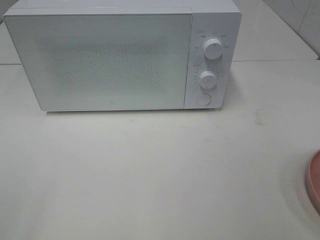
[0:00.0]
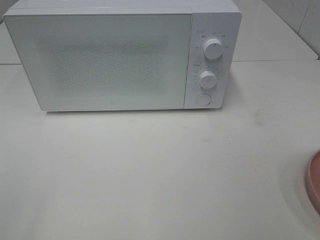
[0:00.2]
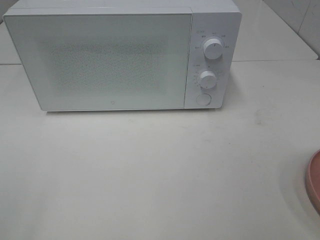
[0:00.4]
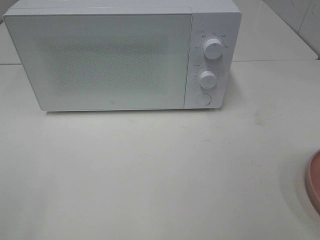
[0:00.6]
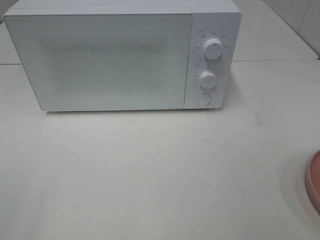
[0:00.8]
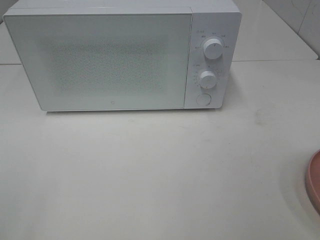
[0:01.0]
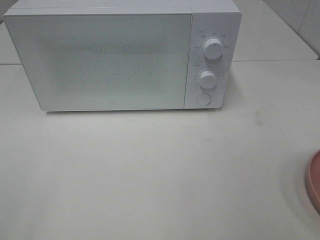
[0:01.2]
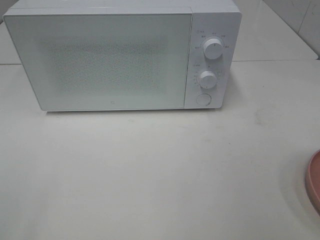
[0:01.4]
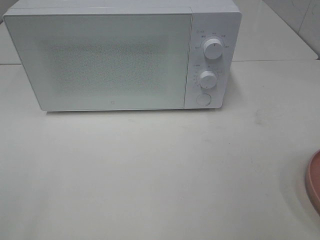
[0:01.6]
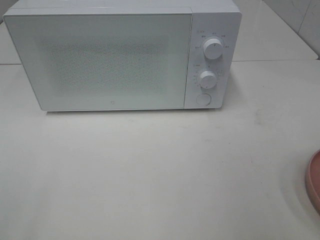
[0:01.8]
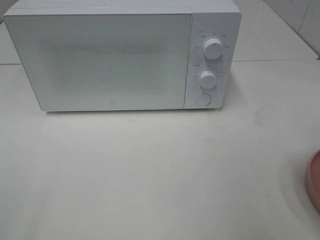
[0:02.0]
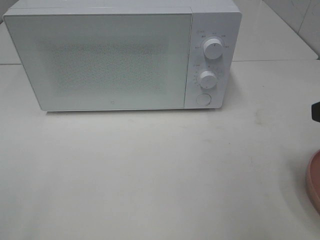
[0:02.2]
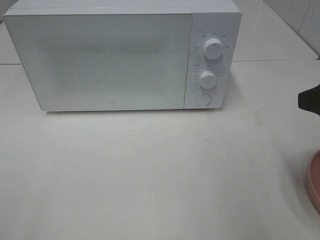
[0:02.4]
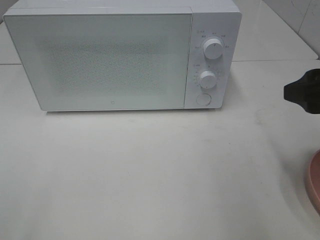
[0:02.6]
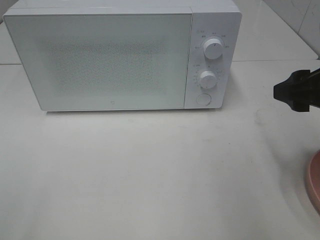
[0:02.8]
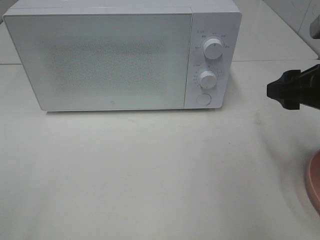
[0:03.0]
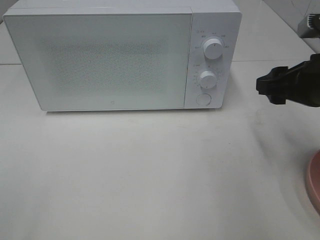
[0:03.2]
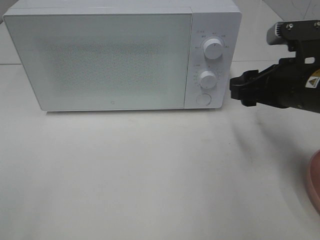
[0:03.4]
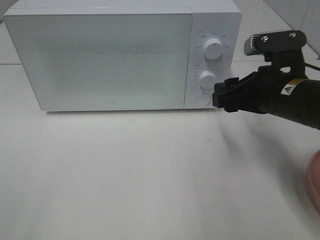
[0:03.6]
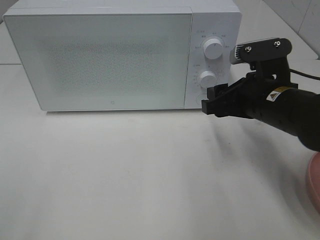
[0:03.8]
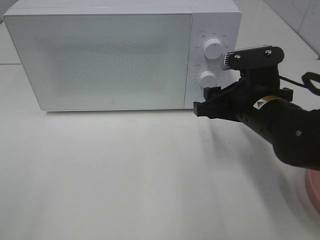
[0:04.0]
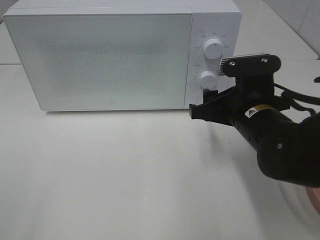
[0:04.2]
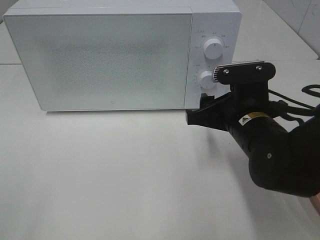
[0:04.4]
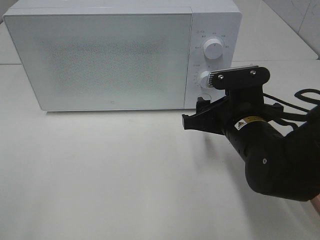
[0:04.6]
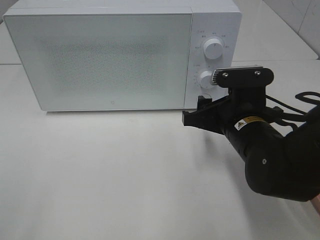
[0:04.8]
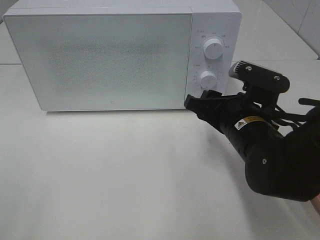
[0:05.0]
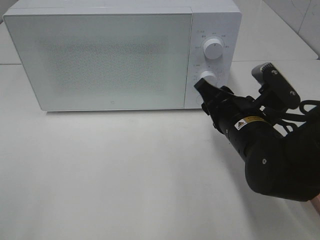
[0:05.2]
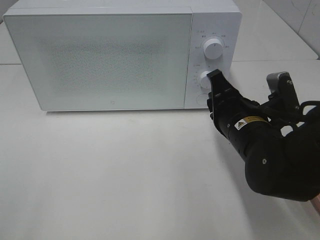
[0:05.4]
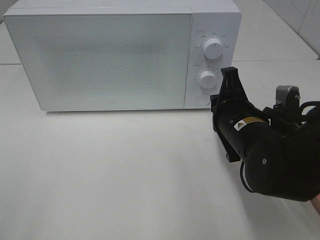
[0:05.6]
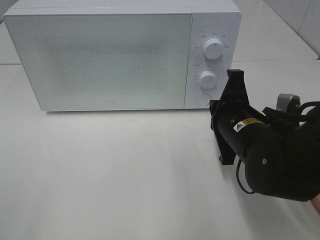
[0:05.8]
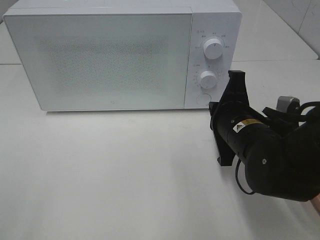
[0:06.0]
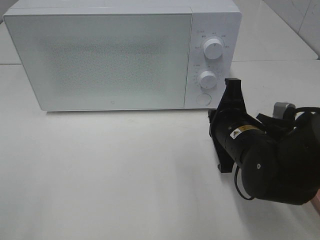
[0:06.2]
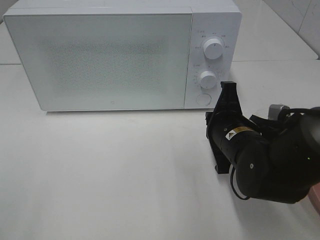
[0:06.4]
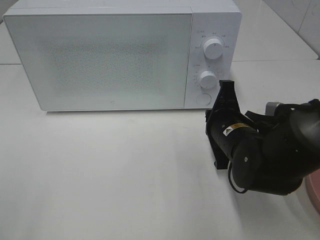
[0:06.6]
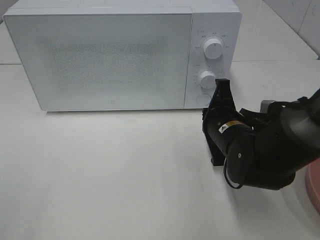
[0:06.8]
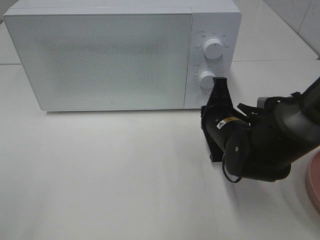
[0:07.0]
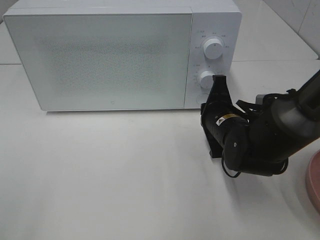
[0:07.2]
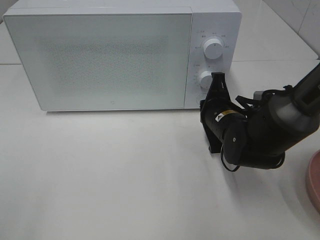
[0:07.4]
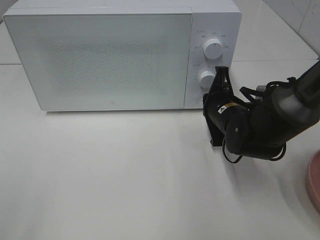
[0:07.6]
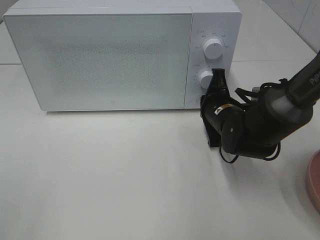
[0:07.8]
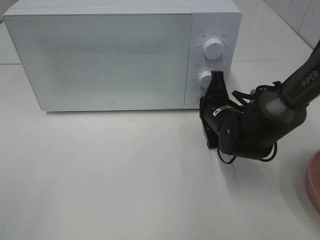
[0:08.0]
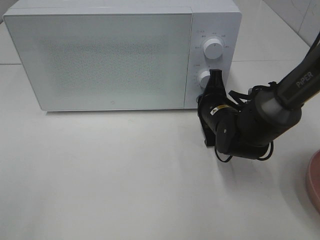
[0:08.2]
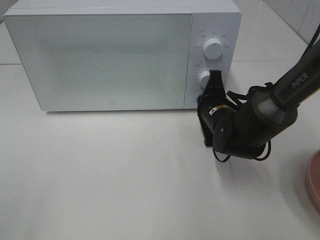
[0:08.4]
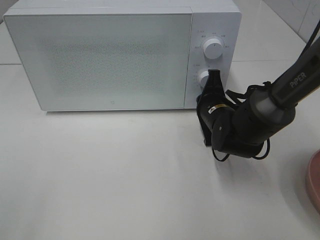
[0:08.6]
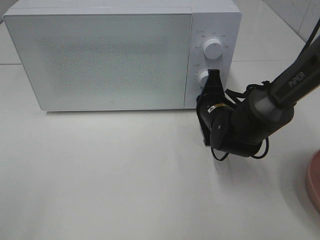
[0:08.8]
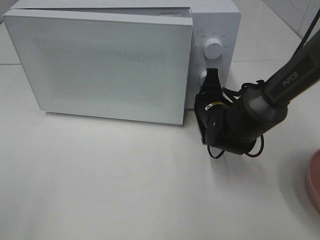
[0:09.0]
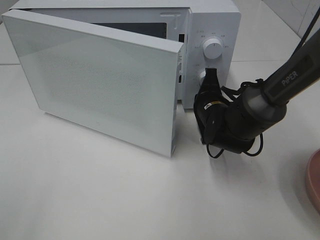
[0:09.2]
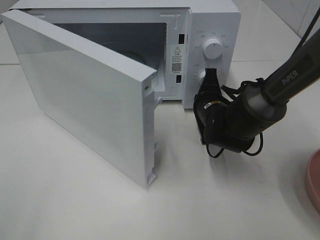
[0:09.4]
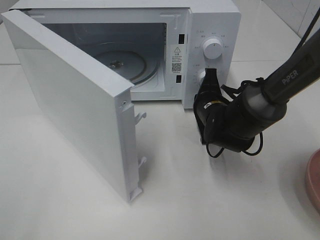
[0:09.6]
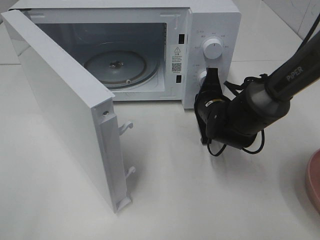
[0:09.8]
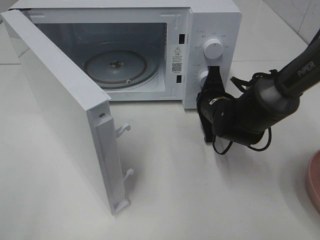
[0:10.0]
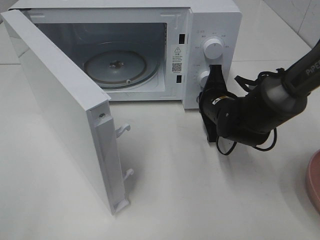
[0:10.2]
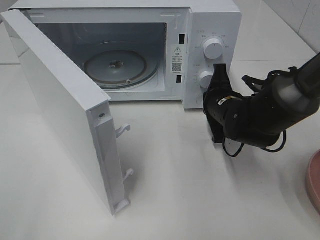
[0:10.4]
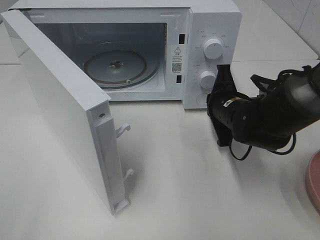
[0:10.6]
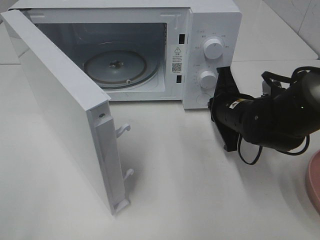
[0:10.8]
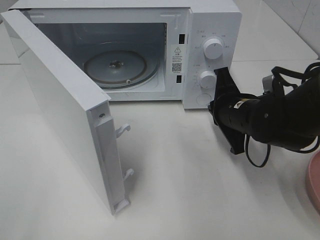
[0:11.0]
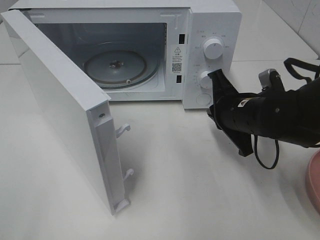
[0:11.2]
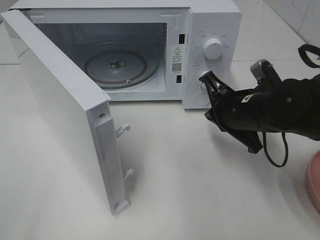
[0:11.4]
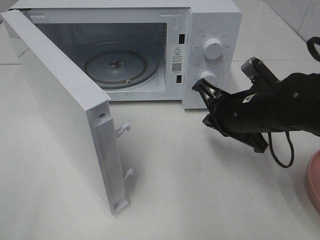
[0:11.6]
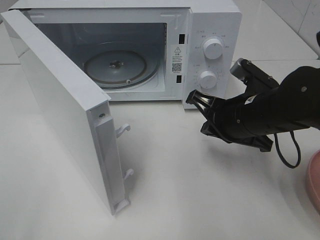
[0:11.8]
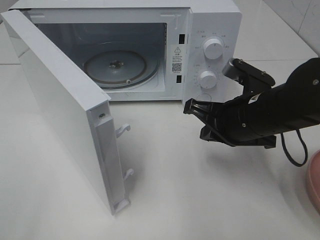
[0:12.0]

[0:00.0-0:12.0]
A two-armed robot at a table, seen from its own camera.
Task of the whole recording: Heat the burger.
Step, 0:00.0 to 0:10.6: Right hand: press the switch.
0:01.6 to 0:03.0: The right gripper shifts about 15 cm forward.
0:03.0 to 0:04.4: The right gripper heads to the left and downward, covering roughly 15 cm.
0:04.4 to 0:06.0: The right gripper closes its fingers.
0:06.0 to 0:07.6: The right gripper heads forward, covering roughly 10 cm.
0:07.6 to 0:09.0: There are only small adjustments of the grippers.
0:10.4 to 0:12.0: The right gripper goes about 10 cm backward and upward.

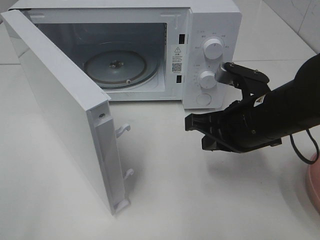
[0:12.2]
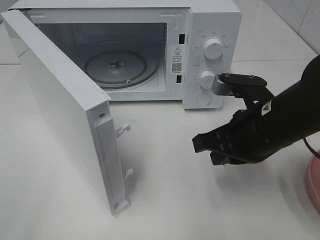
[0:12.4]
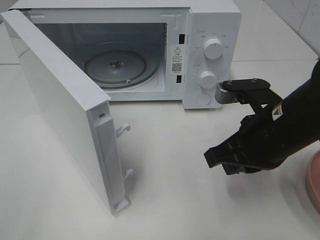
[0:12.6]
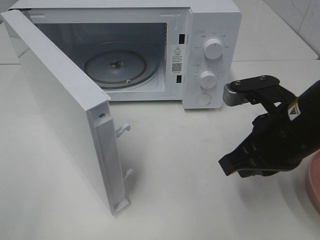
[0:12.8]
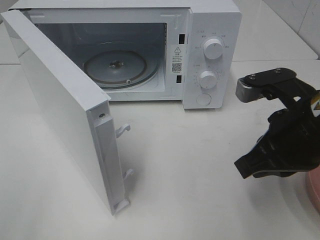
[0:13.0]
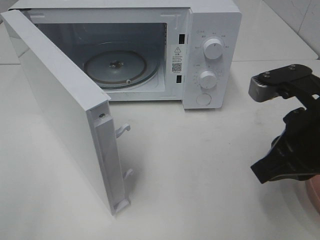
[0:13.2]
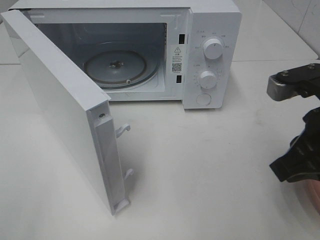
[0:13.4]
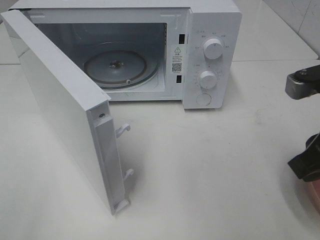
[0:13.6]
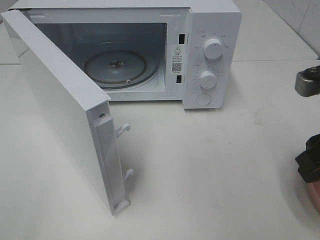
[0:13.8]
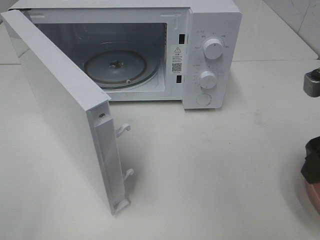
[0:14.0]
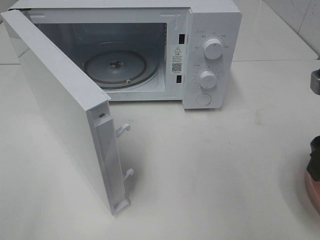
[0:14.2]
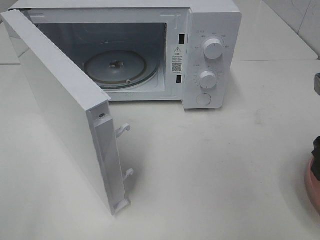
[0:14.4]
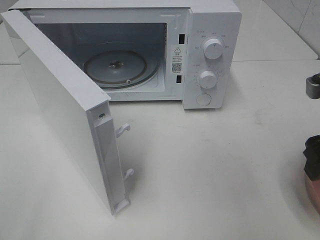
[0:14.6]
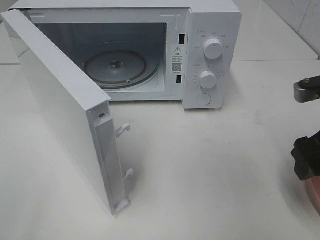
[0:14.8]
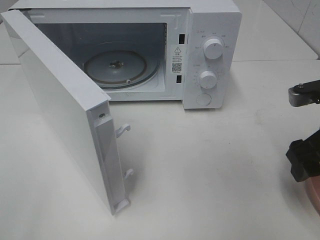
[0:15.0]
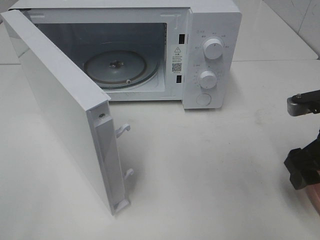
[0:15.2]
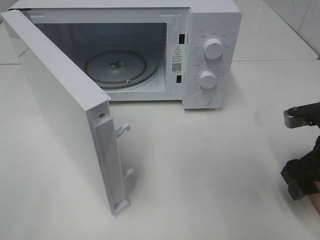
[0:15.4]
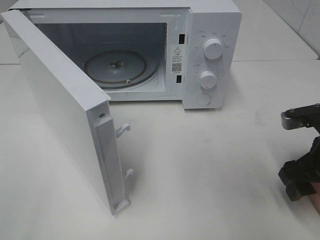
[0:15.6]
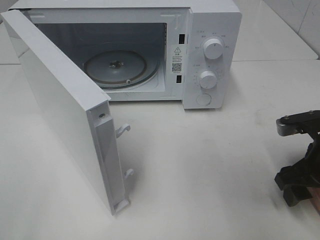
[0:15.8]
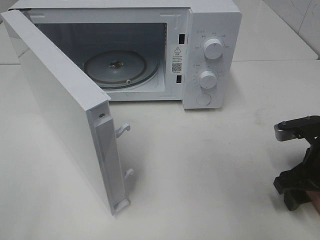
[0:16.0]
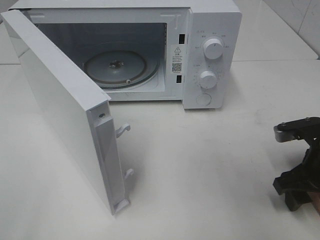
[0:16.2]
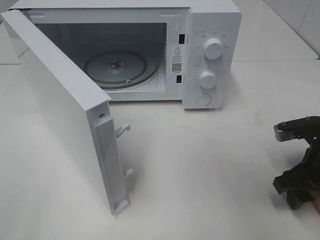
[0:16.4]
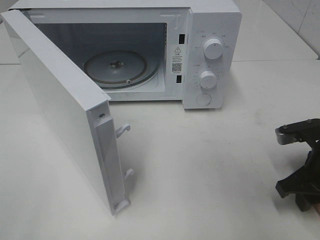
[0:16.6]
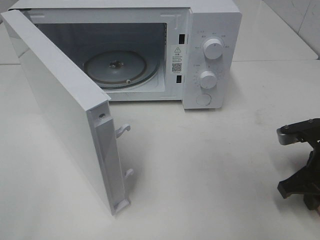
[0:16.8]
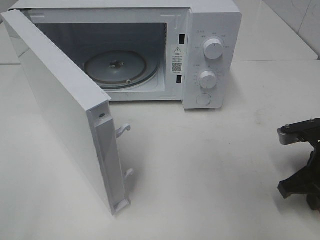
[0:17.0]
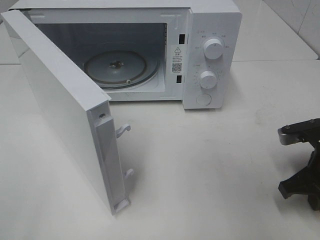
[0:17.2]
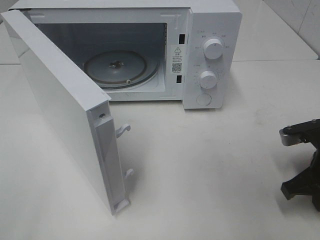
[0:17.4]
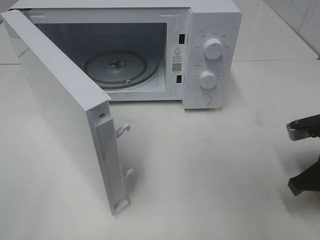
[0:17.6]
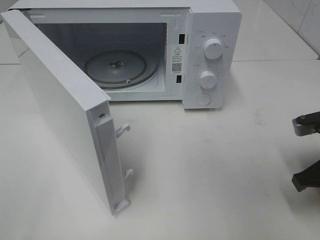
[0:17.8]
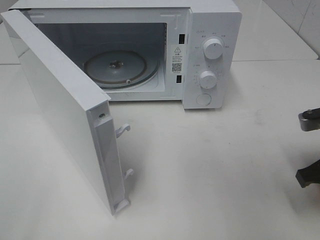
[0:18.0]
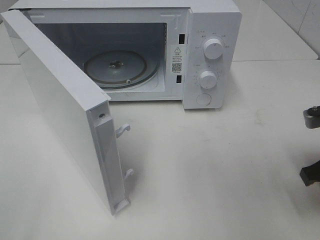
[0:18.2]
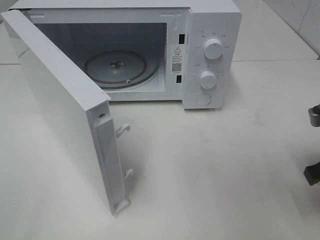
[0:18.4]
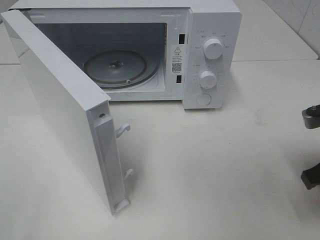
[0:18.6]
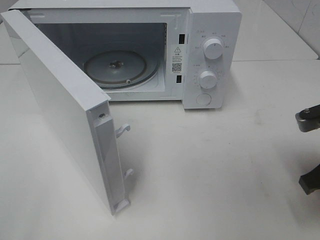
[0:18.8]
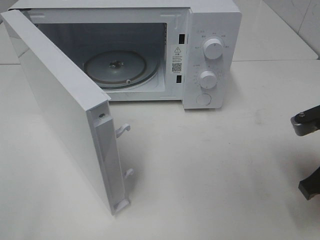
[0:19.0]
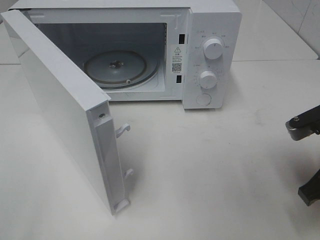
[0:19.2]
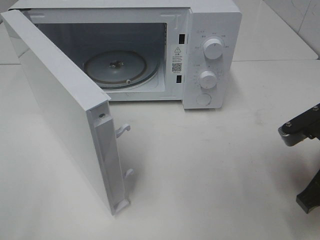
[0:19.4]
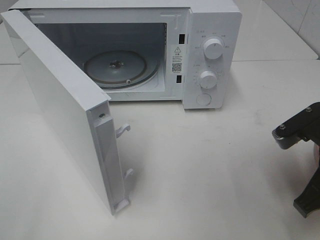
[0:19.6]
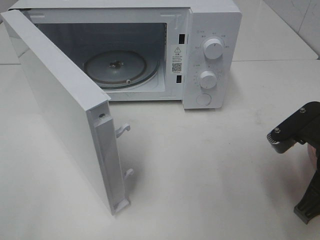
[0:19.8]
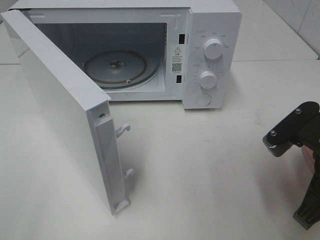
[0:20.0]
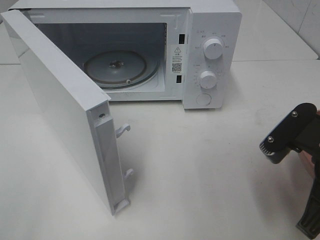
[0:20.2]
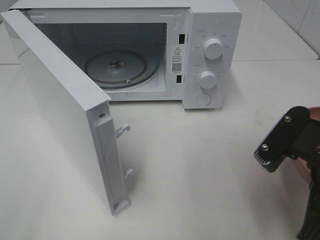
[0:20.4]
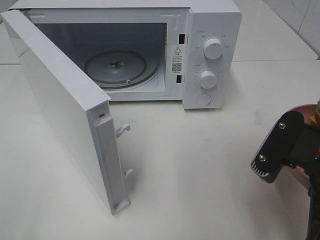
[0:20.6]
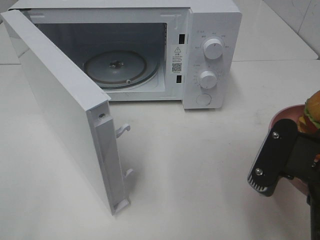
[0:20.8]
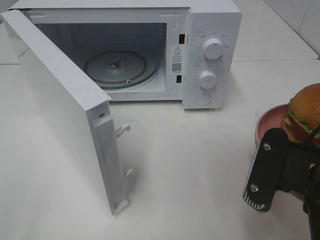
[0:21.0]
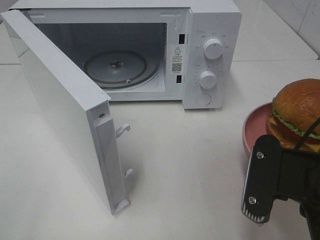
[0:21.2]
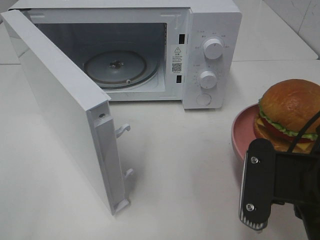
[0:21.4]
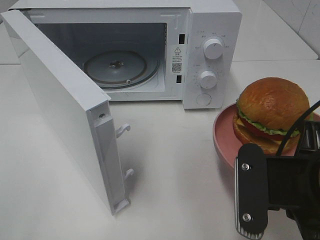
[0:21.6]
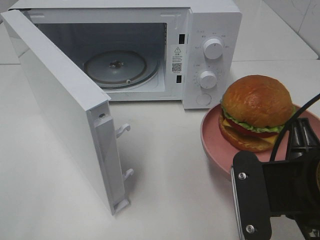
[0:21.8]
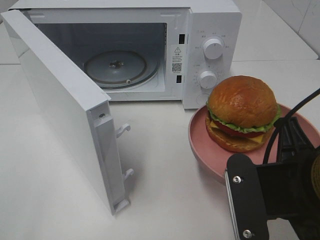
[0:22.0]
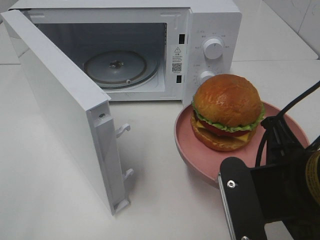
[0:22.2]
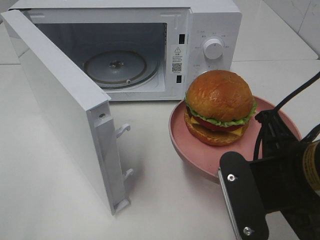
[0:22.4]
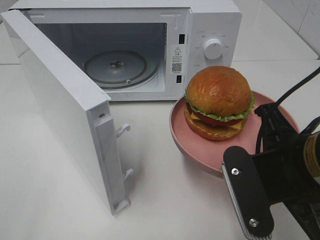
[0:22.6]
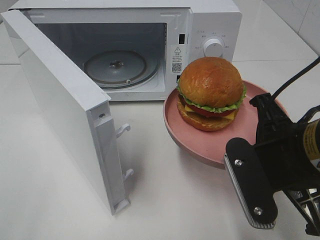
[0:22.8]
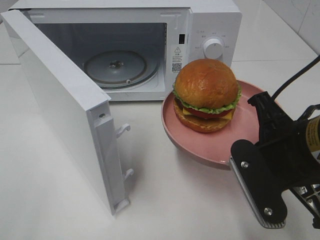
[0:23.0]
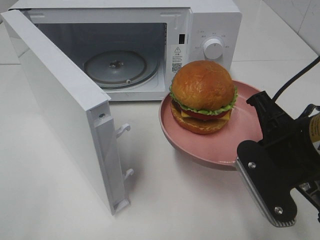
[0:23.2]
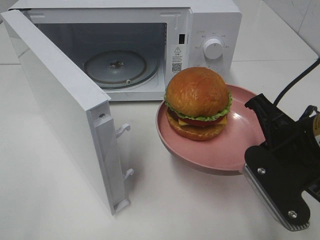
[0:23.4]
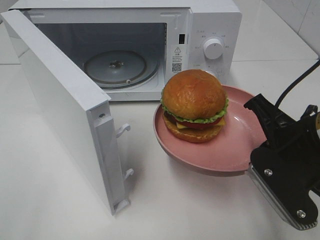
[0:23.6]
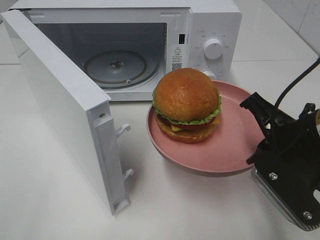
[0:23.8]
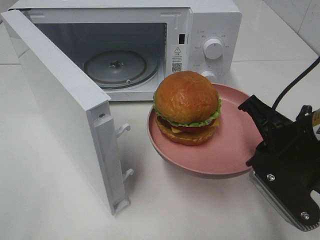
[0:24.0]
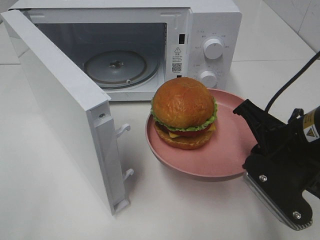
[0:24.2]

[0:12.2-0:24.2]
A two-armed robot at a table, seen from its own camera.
Task of the whole recording: Heat the burger.
Step, 0:12.2 to 0:17.0: Right hand: grab the plate with the hamburger.
0:12.2 to 0:13.8: The right gripper travels to the right, upward and backward by approximately 15 cm, and opens up.
0:13.8 to 0:15.2: The right gripper goes approximately 5 cm downward.
0:15.2 to 0:16.6: The right gripper shifts about 5 cm downward, and closes its fingers.
0:16.6 to 0:18.2: The right gripper travels upward by roughly 5 cm, and closes up.
0:18.2 to 0:19.8: The right gripper is displaced to the left by approximately 5 cm.
0:19.8 to 0:21.2: The right gripper travels backward by about 5 cm.
0:22.6 to 0:24.2: The right gripper changes place by roughly 5 cm.
